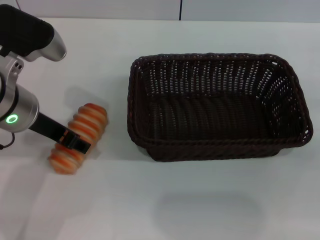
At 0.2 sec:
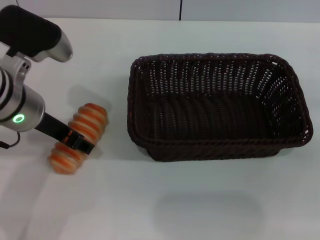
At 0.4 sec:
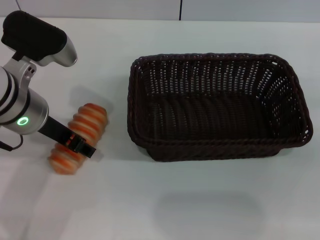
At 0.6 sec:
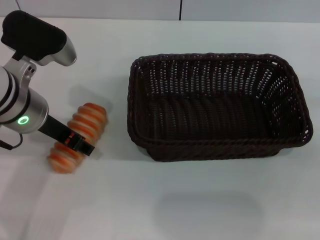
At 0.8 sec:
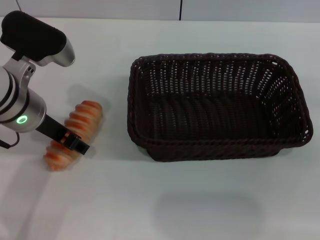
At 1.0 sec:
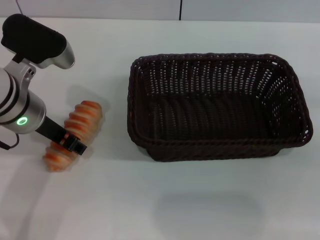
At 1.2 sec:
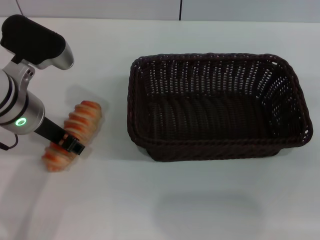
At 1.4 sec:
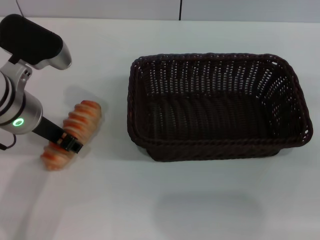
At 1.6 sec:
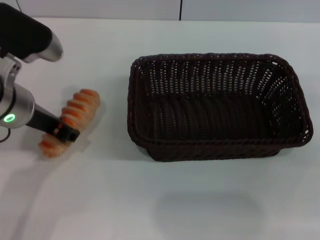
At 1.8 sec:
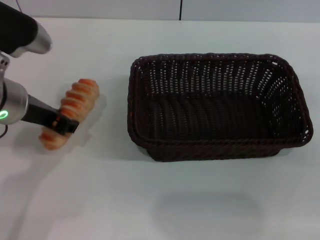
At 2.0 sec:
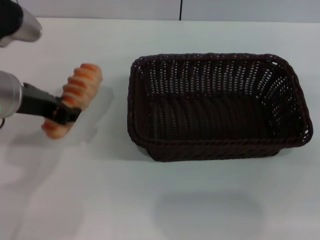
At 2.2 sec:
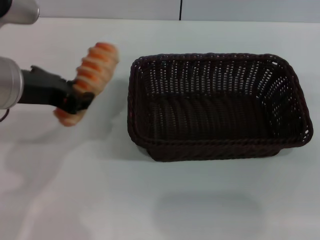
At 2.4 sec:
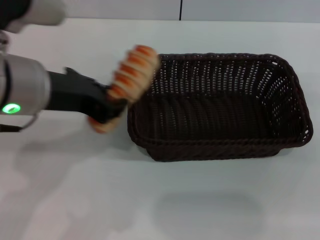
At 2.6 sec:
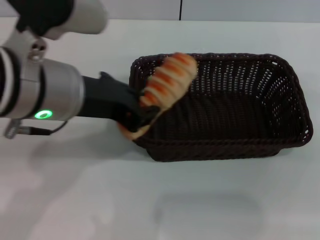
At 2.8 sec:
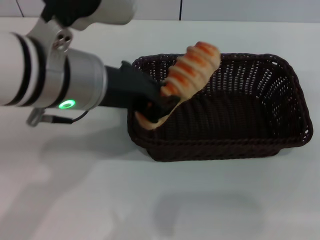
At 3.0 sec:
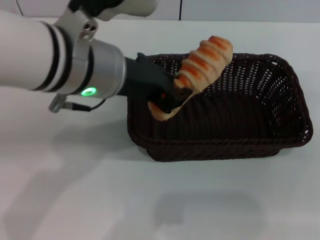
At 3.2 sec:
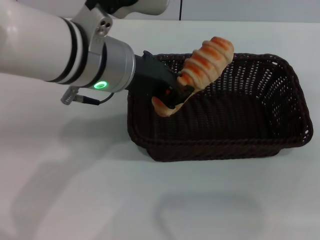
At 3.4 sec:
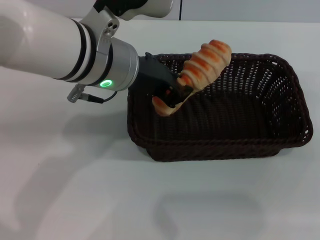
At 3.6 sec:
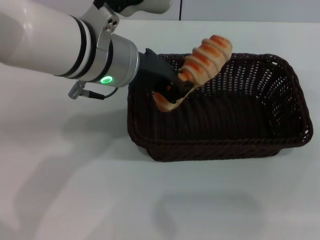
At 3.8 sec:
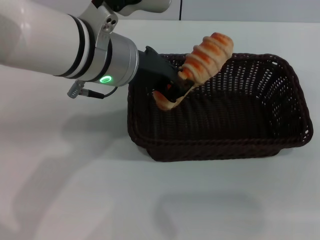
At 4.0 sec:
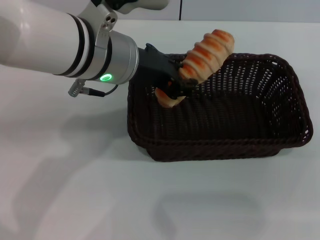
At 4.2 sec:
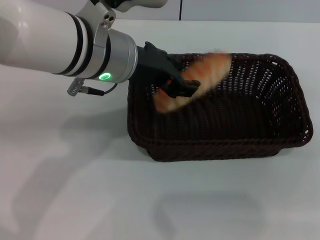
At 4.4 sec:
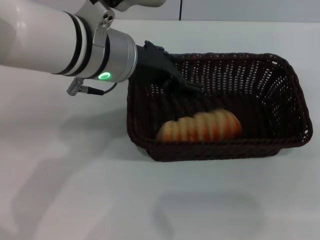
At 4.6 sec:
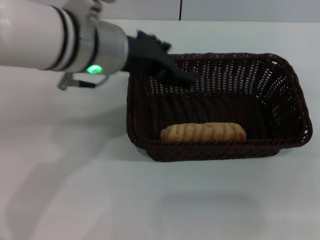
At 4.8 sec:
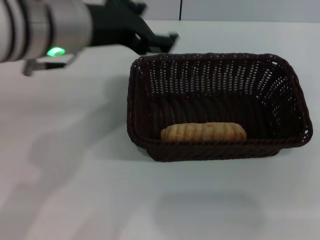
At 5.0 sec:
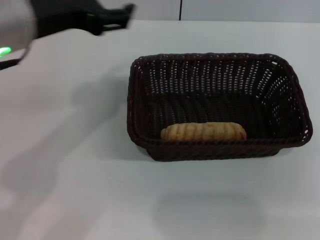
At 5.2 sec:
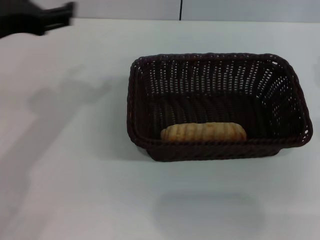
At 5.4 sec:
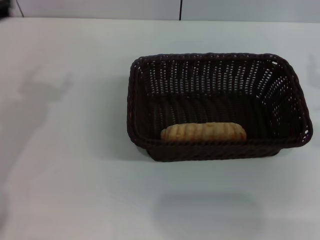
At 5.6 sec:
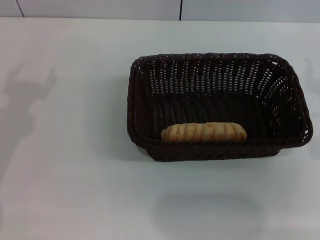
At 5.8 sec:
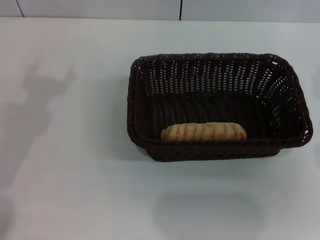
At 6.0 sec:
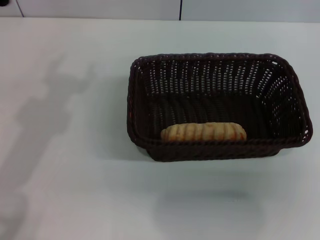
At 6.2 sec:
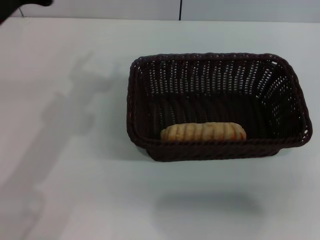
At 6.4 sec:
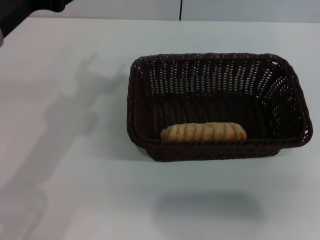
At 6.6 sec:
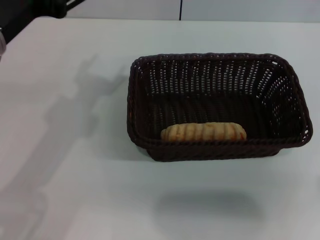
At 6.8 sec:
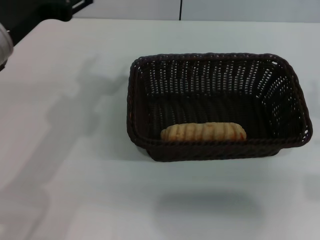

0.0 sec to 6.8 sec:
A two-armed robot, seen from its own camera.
Step, 0.0 sec to 2.0 sec: Pick up the long bread with the left gripper.
Step, 2.2 sec to 4.8 sec: Place the long bread into the dark basket with the left gripper.
0.0 sec to 1.4 sec: The grippers make only small movements.
1.4 sec to 2.8 sec: The left gripper is displaced upward and to the right by approximately 10 cm.
2.8 sec to 4.0 sec: The left gripper travels forward by some 5 cm.
4.0 sec to 5.4 sec: The left gripper shifts roughly 20 cm to the left, and opens up; the right gripper is displaced to the left by about 5 cm.
5.4 sec to 6.8 sec: The left gripper moves to the right, approximately 10 cm.
